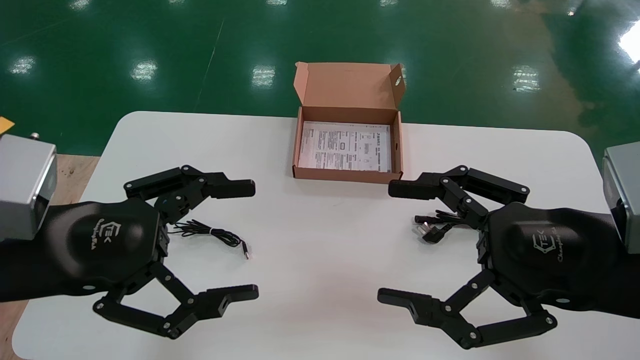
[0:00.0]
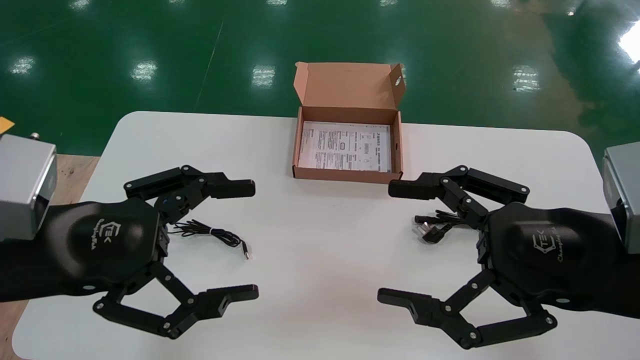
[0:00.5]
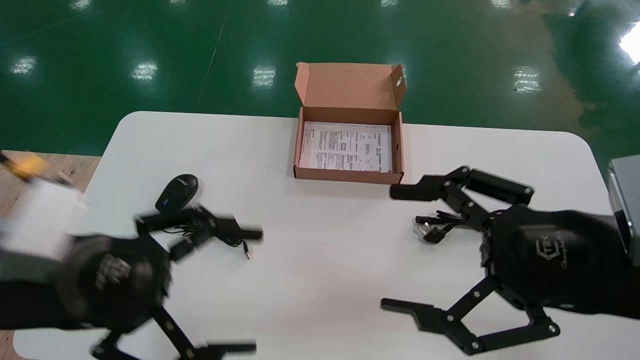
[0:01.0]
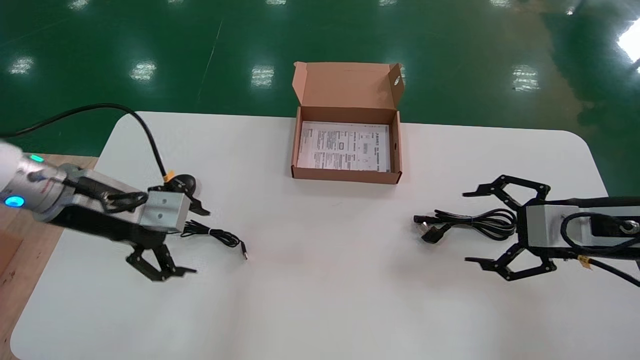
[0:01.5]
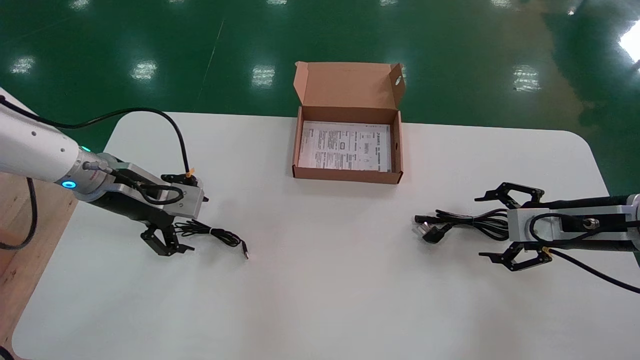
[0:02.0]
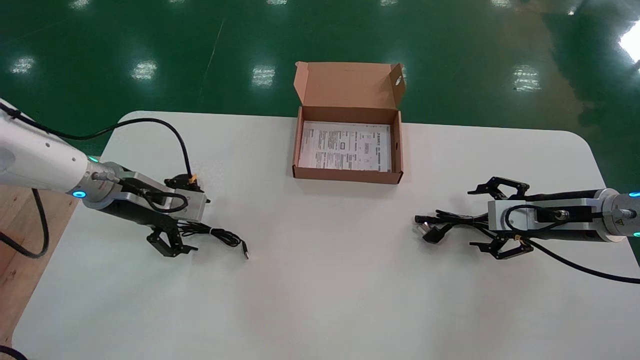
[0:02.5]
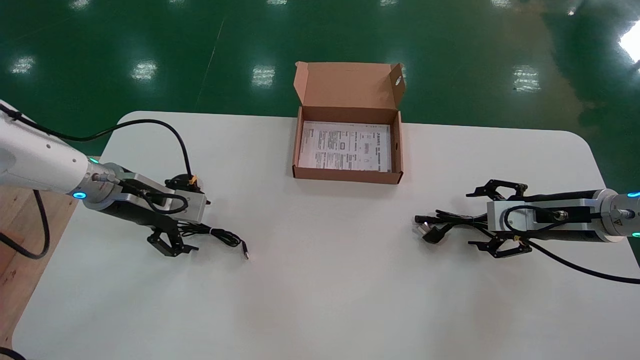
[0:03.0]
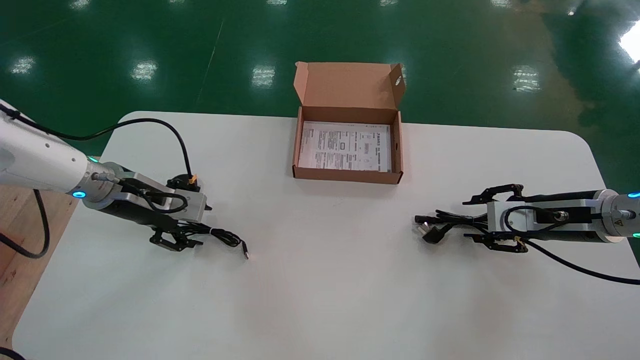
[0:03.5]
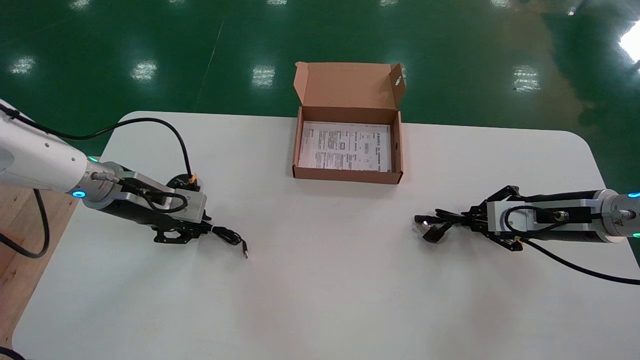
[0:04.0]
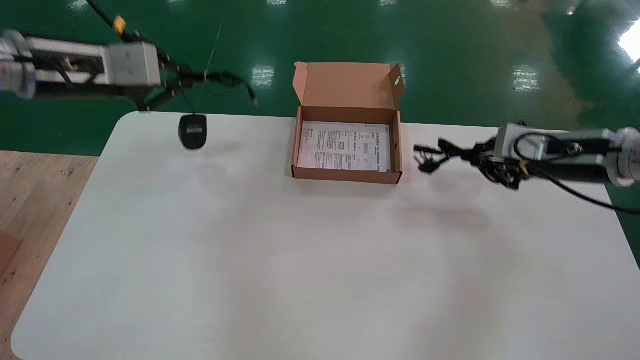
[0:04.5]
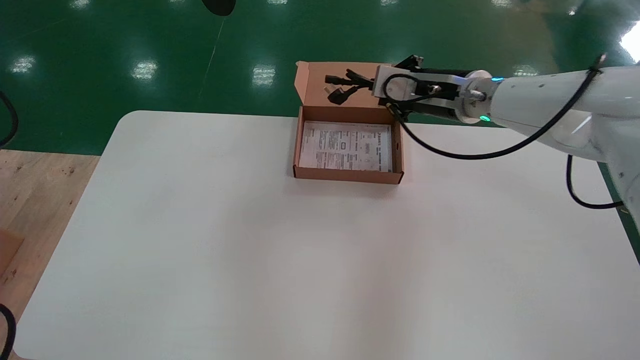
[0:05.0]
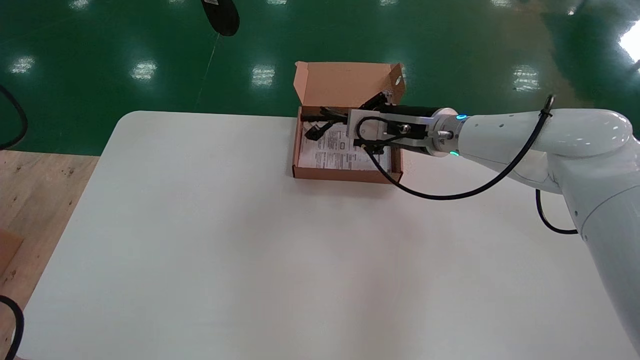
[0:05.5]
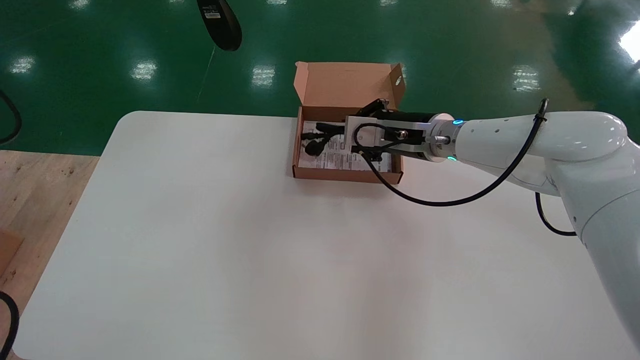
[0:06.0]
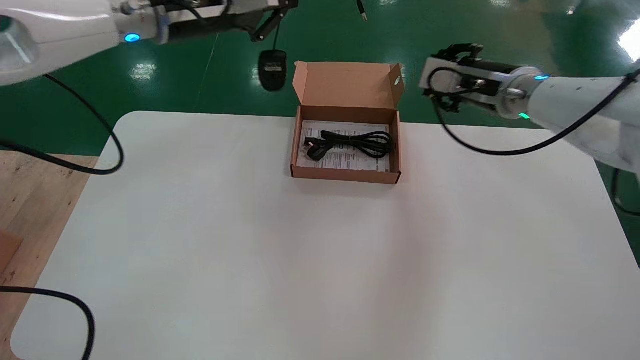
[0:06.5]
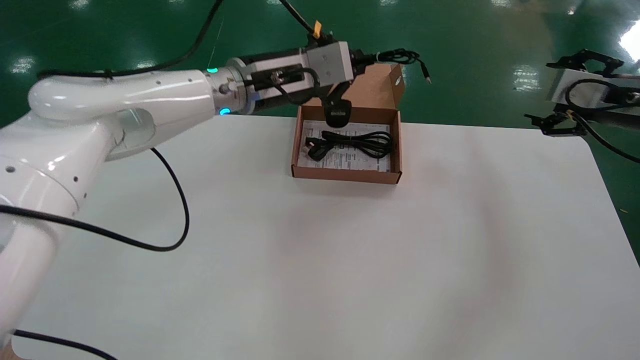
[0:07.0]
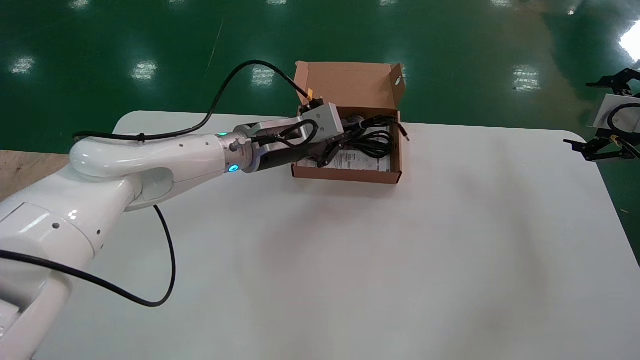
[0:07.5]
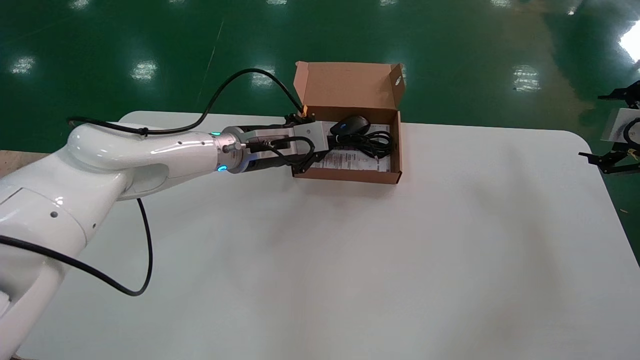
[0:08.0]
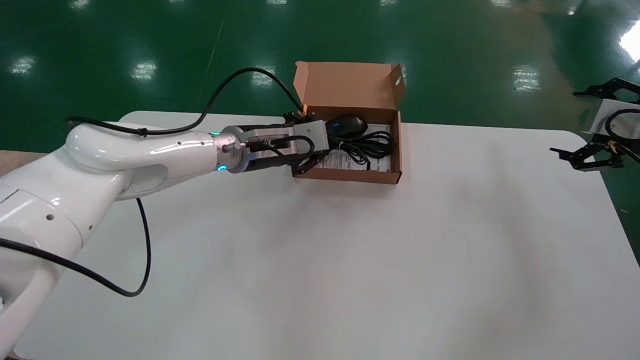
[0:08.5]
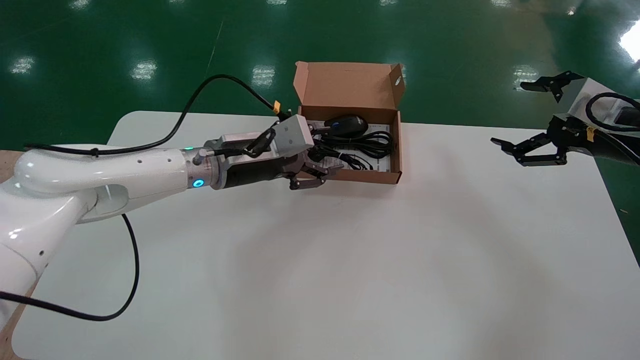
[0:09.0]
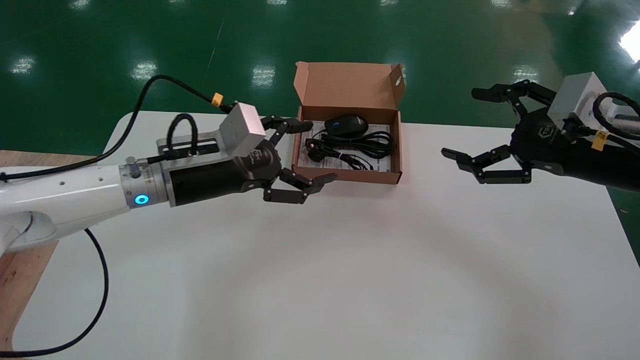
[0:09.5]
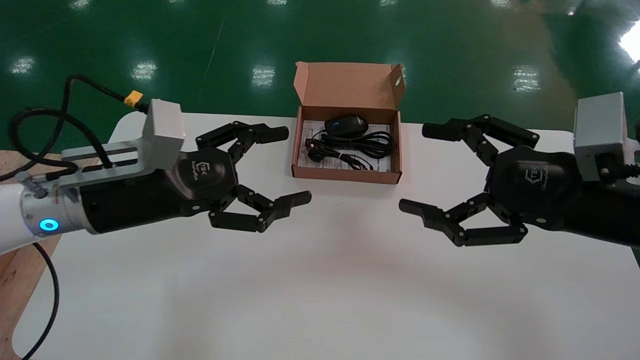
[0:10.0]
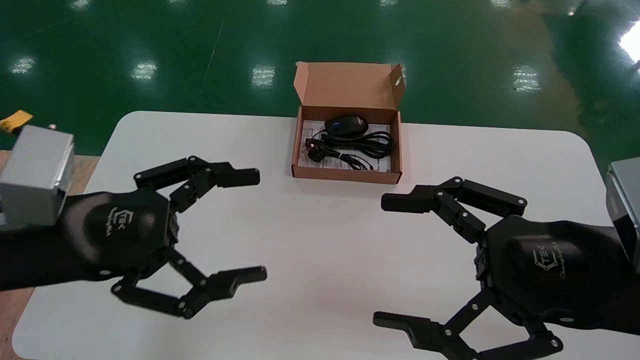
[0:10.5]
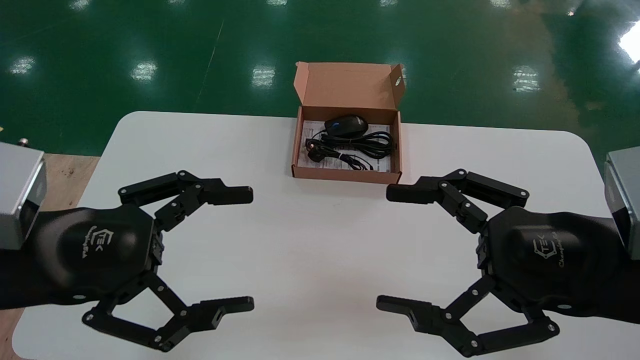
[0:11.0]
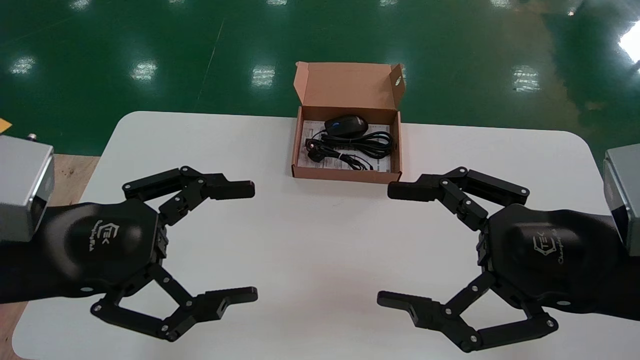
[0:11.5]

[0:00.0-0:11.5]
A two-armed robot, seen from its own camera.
Step, 0:01.0 to 0:04.0: Simultaneously pick up the mouse and power cord from the accessory packaging area.
Step, 0:04.5 to 0:08.5: Place the mouse and power cord into the box.
0:00.0 to 0:02.0: The left gripper goes roughly 20 cm forward. Meanwhile the right gripper shifts some 20 cm forward and to the right.
0:02.0 to 0:04.0: The left gripper closes its fingers. Meanwhile the right gripper closes its fingers.
0:04.0 to 0:06.0: The left gripper travels upward by some 25 cm; the right gripper heads to the left and upward, covering approximately 25 cm.
0:06.0 to 0:07.5: The left gripper moves downward, to the right and forward, some 30 cm; the right gripper shifts approximately 30 cm to the right, and opens up.
0:07.5 to 0:09.5: The left gripper moves backward and to the left, roughly 10 cm, and opens, while the right gripper goes approximately 15 cm to the left and backward.
0:09.5 to 0:11.5: The grippers both shift backward and to the left by some 20 cm.

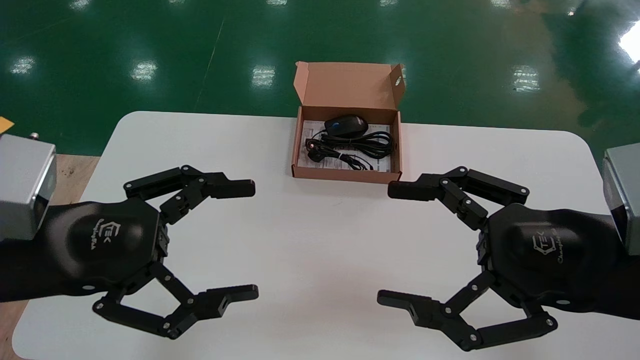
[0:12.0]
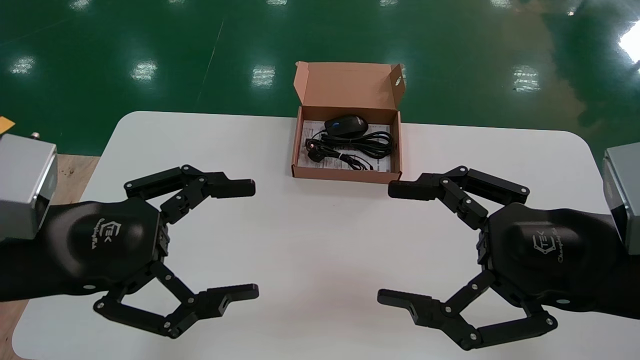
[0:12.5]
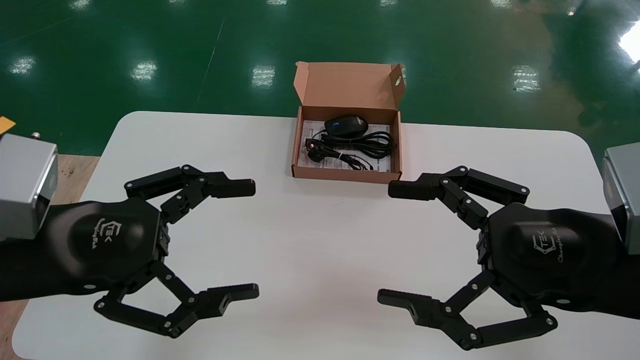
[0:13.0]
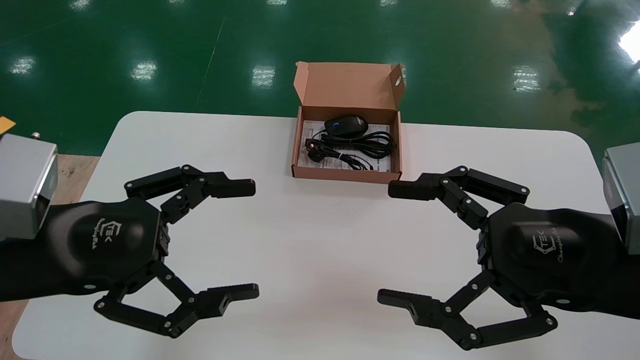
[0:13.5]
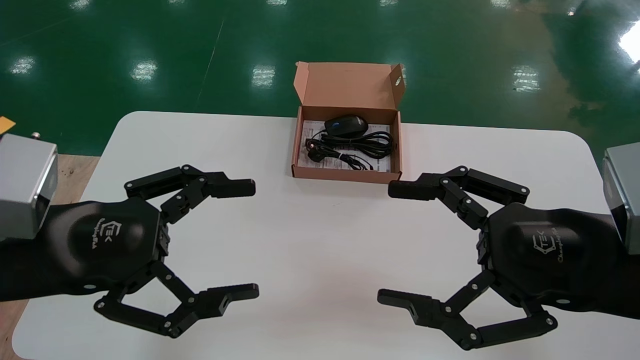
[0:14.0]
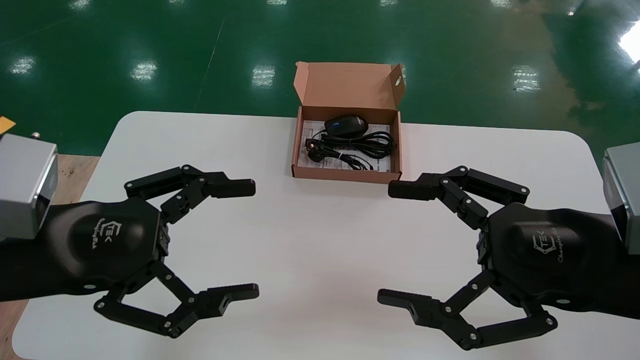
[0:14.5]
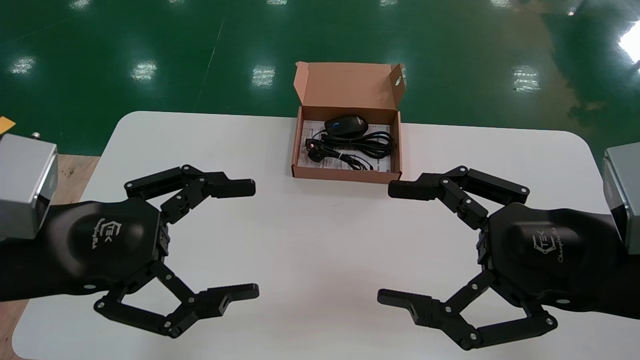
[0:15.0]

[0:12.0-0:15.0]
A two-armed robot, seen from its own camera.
0:12.0 to 0:15.0: Both grippers stay put.
